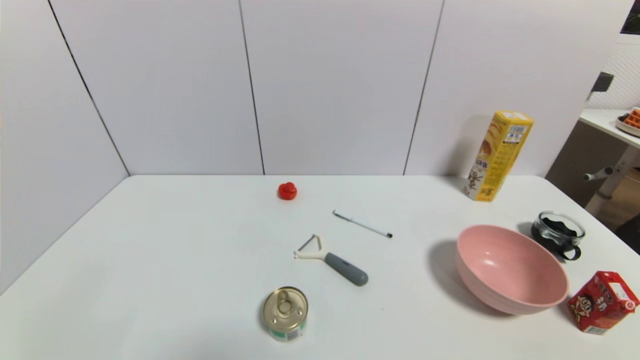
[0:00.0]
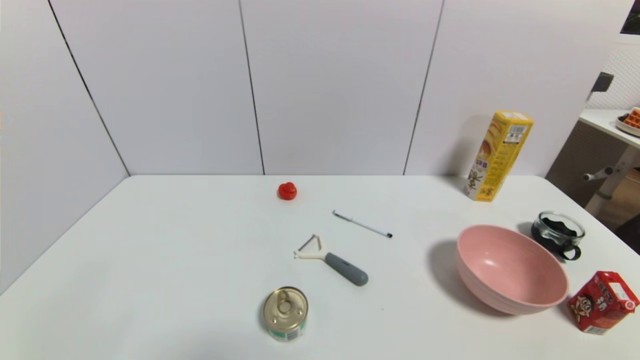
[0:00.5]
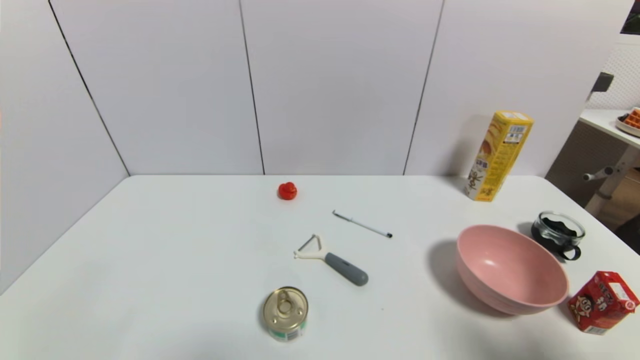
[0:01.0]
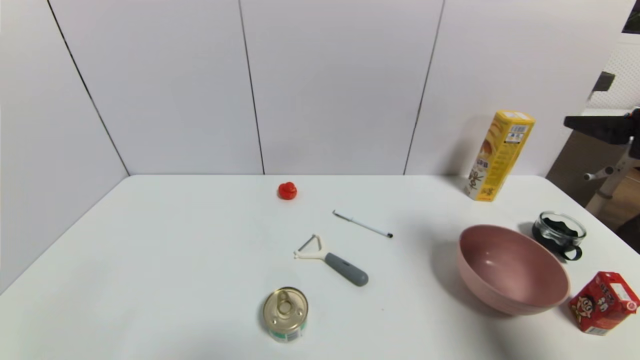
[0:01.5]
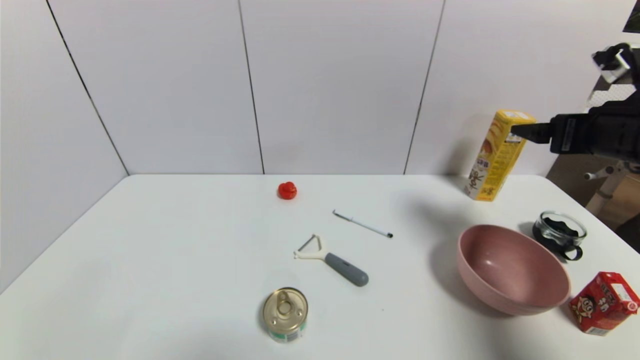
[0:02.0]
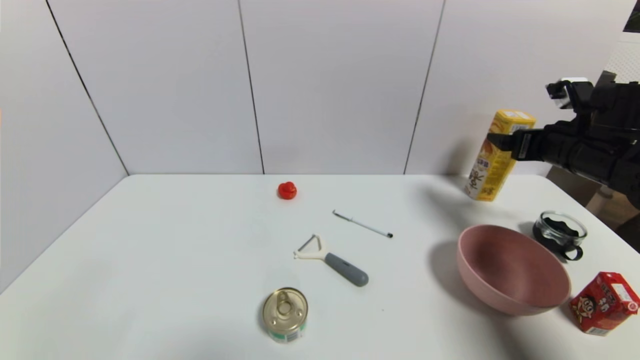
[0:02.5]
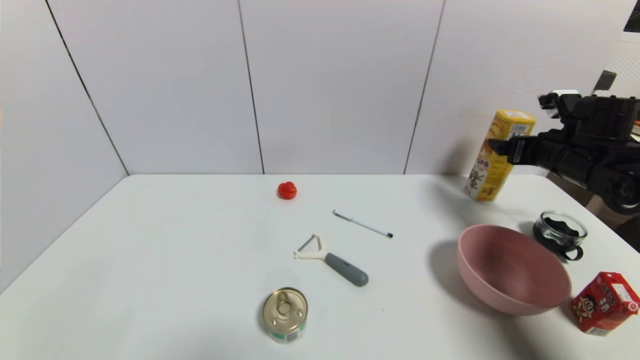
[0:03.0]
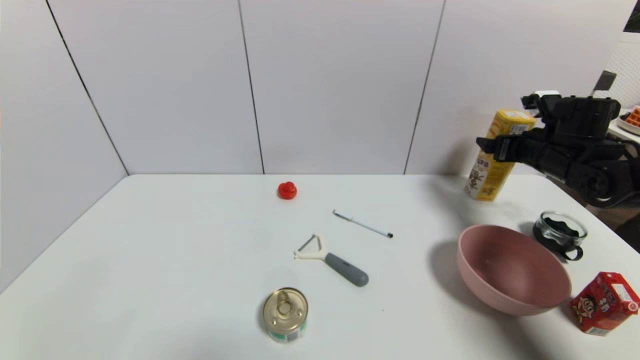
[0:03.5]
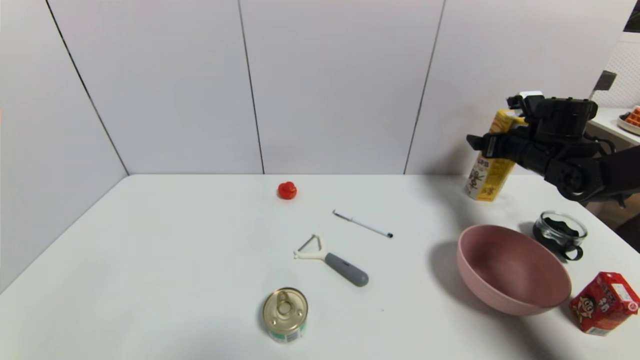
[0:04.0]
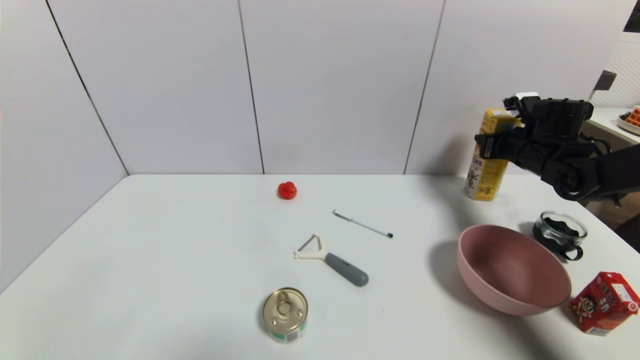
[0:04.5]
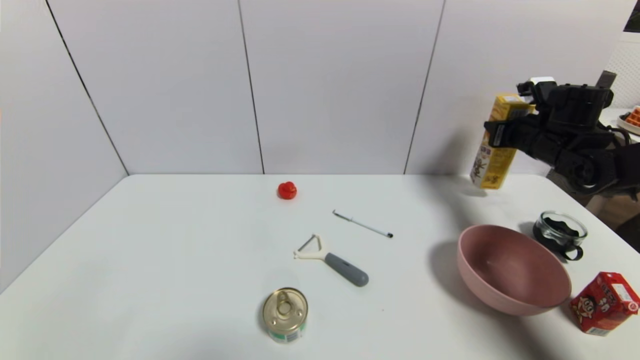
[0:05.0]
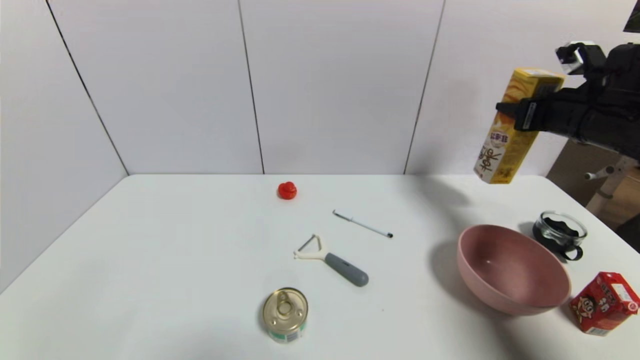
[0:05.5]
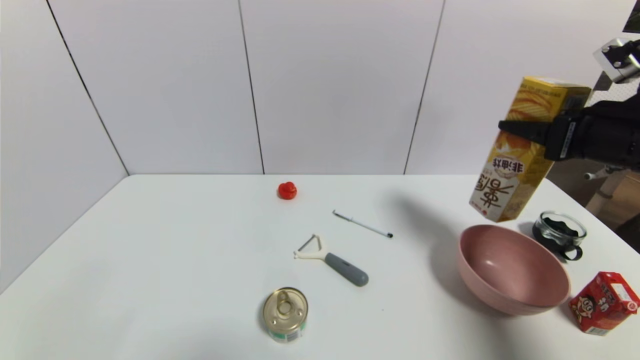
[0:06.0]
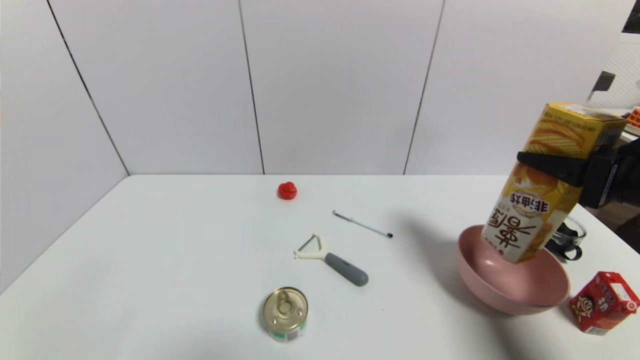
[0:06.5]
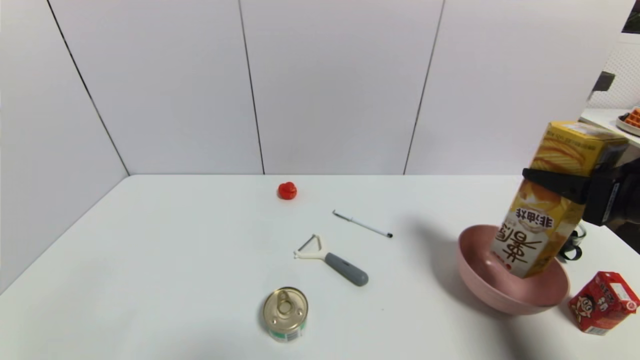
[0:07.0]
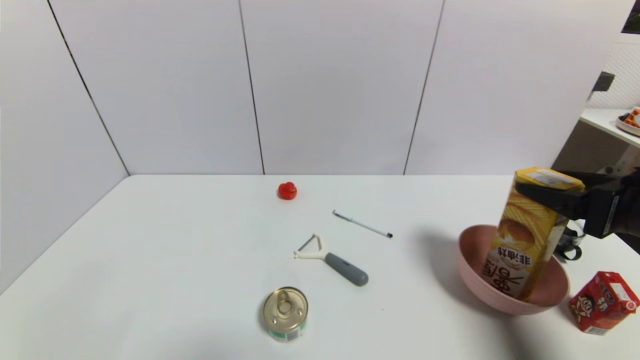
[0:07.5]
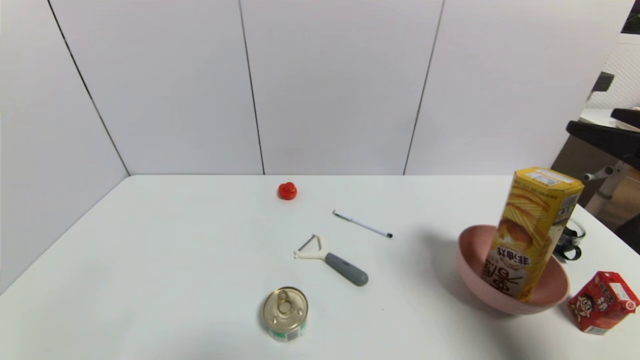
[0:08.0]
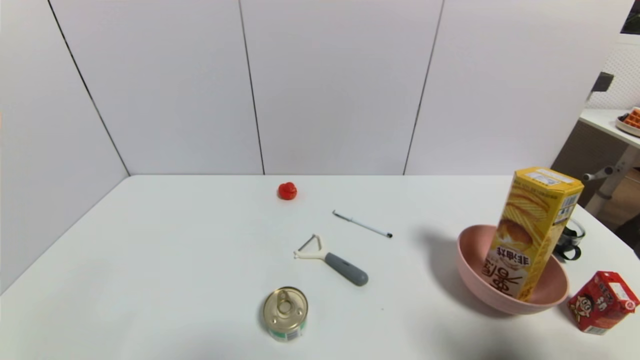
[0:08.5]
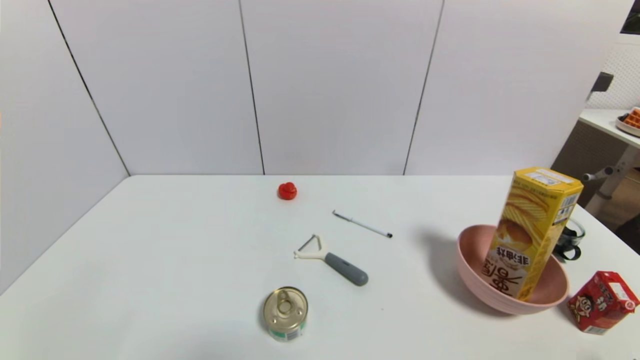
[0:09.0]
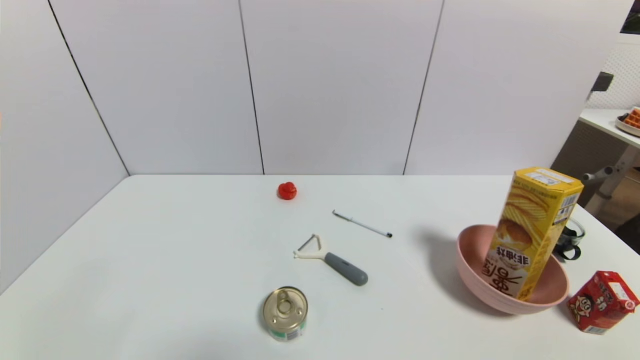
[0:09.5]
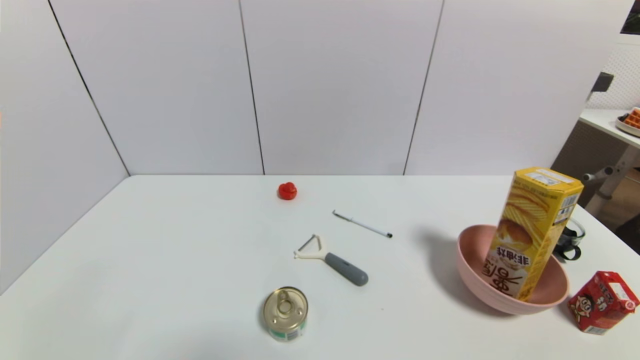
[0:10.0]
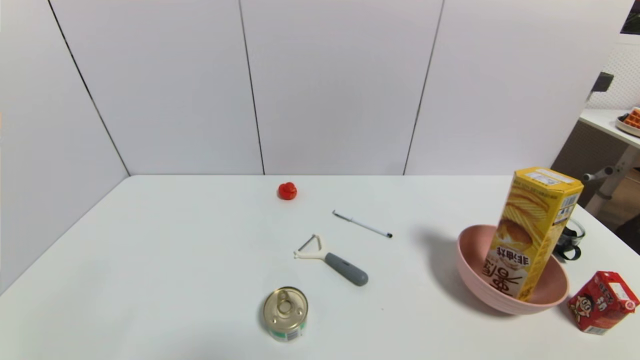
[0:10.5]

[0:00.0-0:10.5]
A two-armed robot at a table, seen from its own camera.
Task of the whole recording: use a gripper to pick the target object and place on the pink bowl.
Step, 0:00.0 to 0:04.5: Grasp the potato chips with the right gripper.
Step, 0:05.0 to 0:07.5: Place the potato chips on the pink bowl with the right gripper.
0:00.0 to 0:02.0: The right gripper is displaced forward and upward by roughly 35 cm.
0:02.0 to 0:04.0: The right gripper is displaced forward and downward by roughly 20 cm.
0:04.0 to 0:06.5: The right gripper travels backward by some 25 cm, and closes.
0:06.5 to 0:08.5: The right gripper is displaced backward by roughly 15 cm, and opens.
0:08.5 to 0:10.5: The right gripper is displaced downward and backward by about 15 cm.
